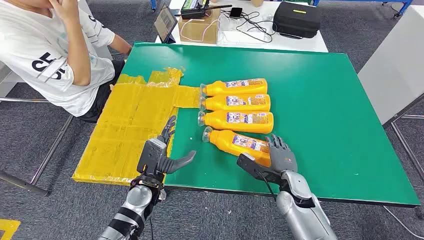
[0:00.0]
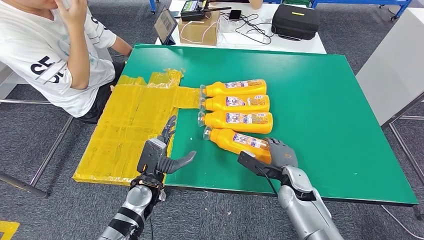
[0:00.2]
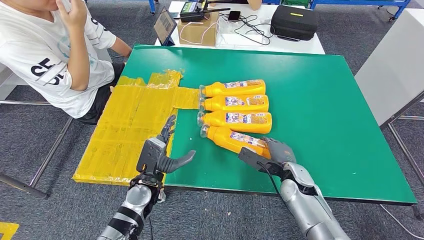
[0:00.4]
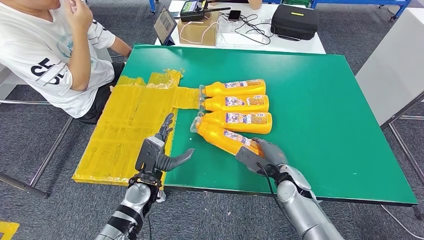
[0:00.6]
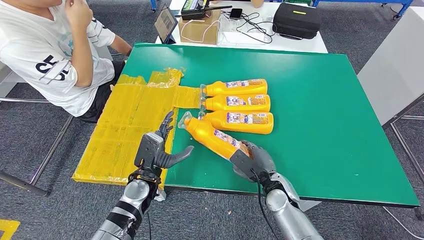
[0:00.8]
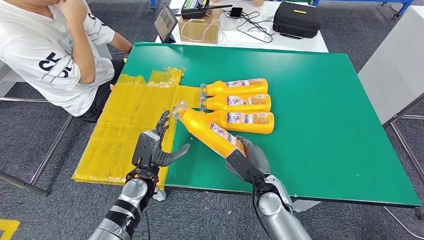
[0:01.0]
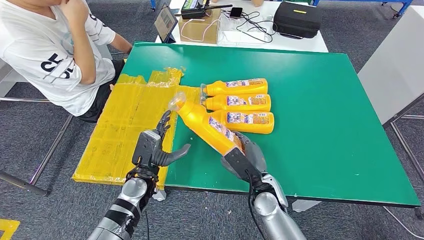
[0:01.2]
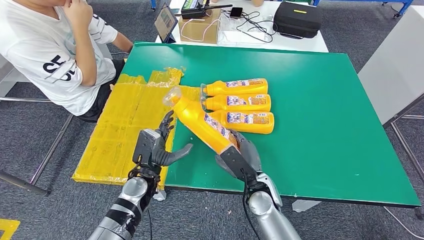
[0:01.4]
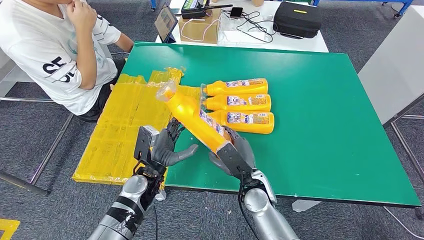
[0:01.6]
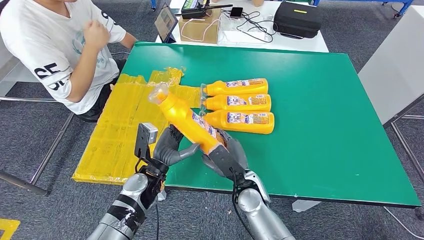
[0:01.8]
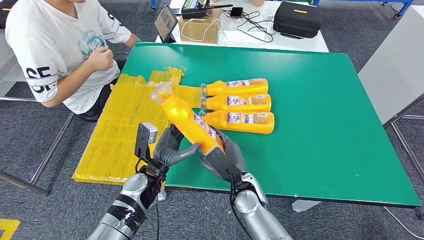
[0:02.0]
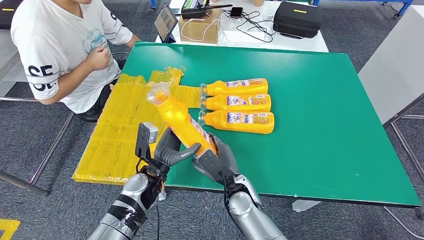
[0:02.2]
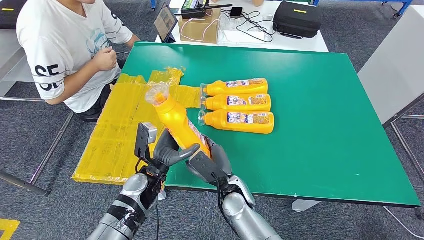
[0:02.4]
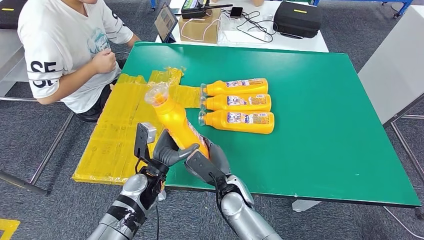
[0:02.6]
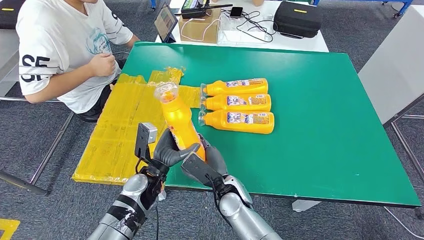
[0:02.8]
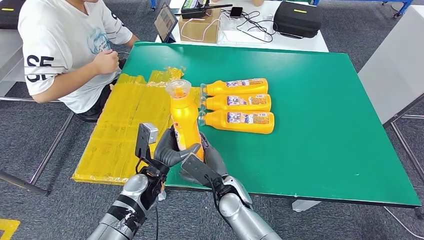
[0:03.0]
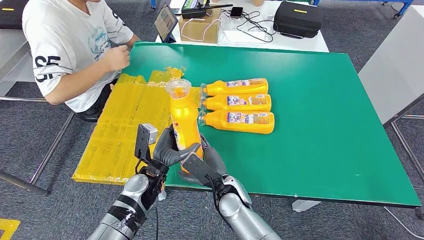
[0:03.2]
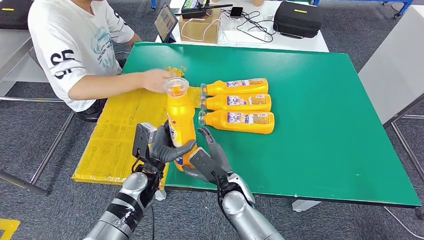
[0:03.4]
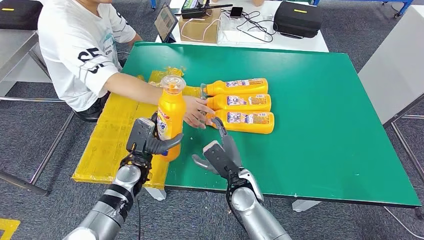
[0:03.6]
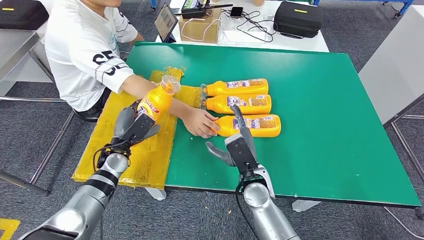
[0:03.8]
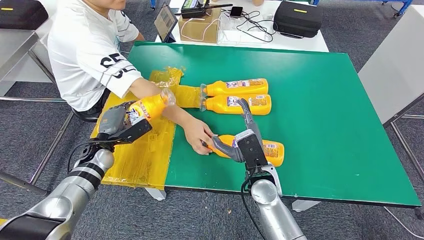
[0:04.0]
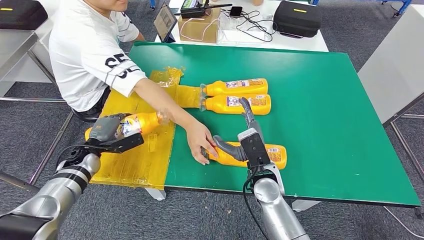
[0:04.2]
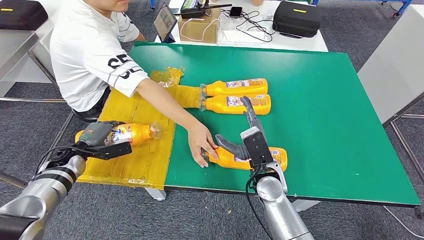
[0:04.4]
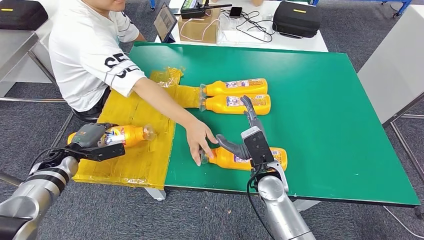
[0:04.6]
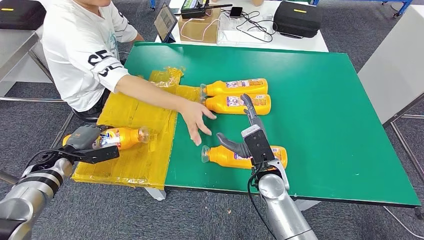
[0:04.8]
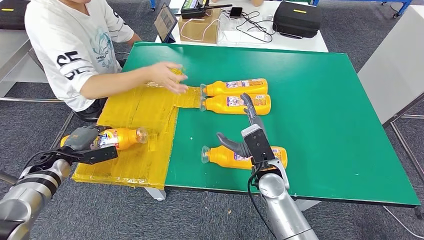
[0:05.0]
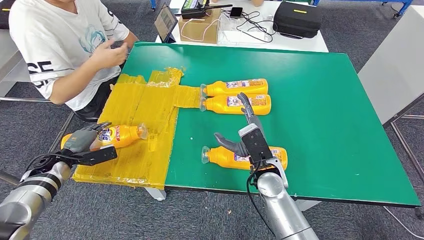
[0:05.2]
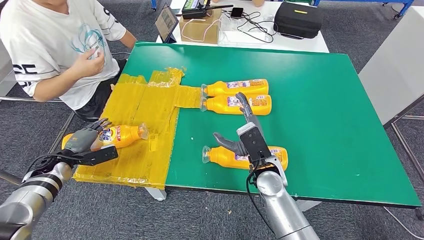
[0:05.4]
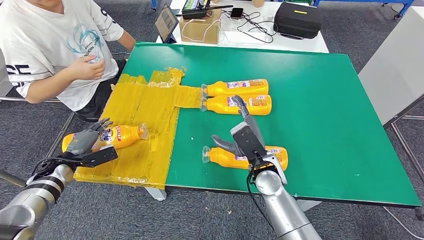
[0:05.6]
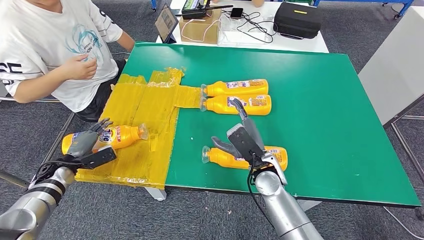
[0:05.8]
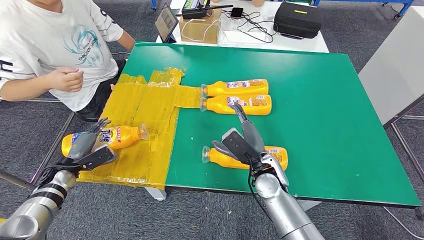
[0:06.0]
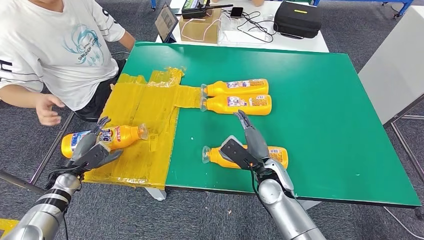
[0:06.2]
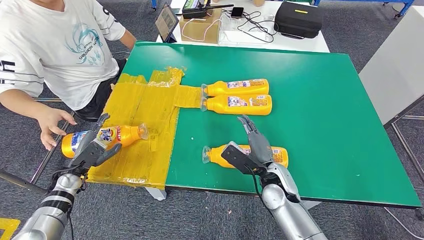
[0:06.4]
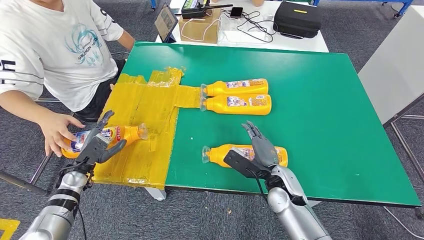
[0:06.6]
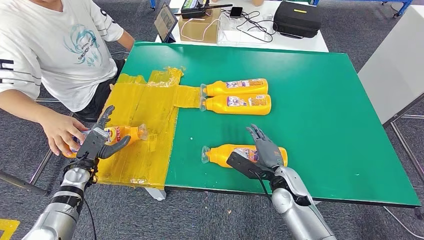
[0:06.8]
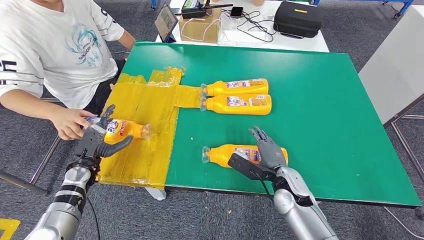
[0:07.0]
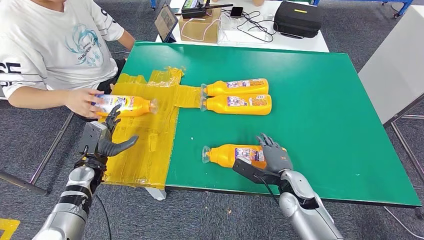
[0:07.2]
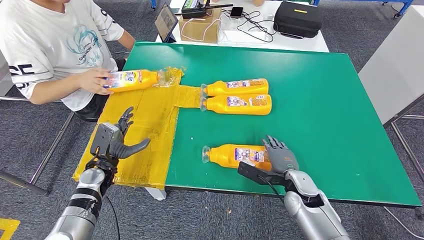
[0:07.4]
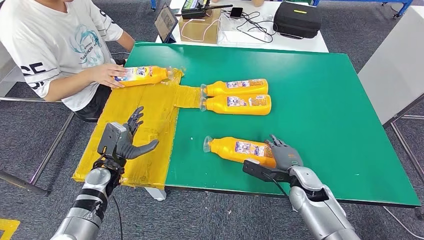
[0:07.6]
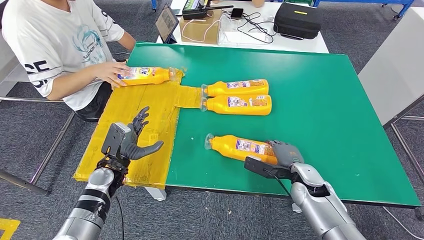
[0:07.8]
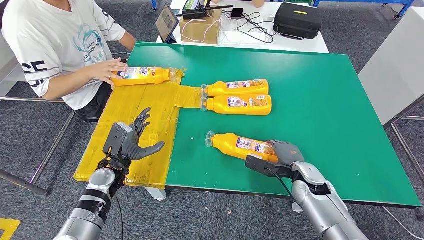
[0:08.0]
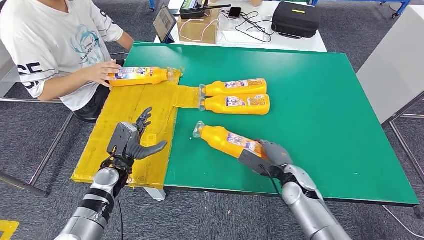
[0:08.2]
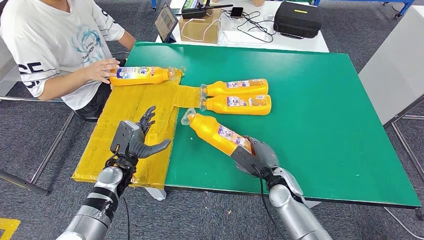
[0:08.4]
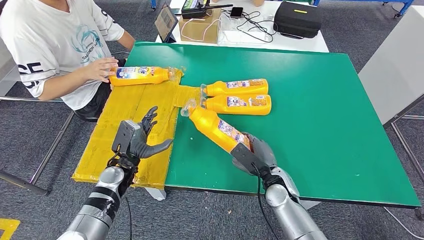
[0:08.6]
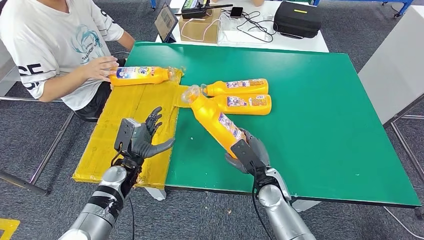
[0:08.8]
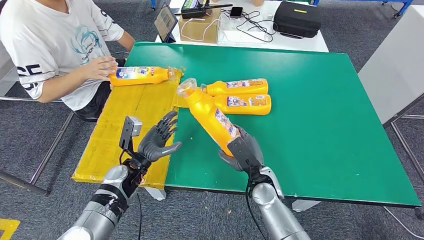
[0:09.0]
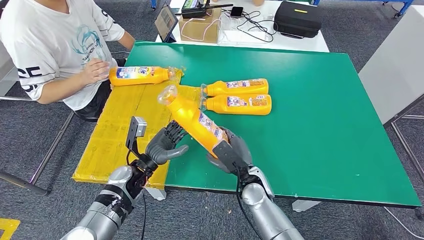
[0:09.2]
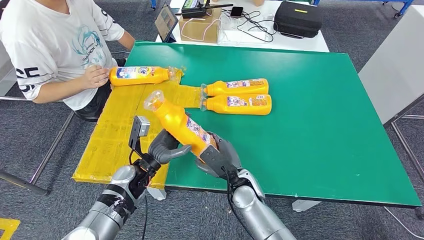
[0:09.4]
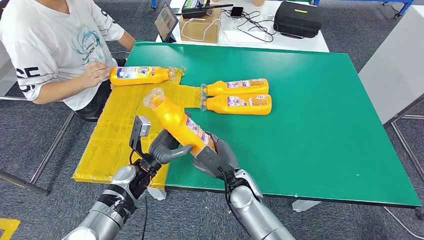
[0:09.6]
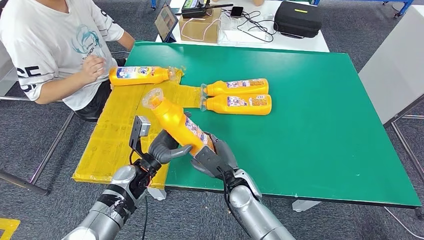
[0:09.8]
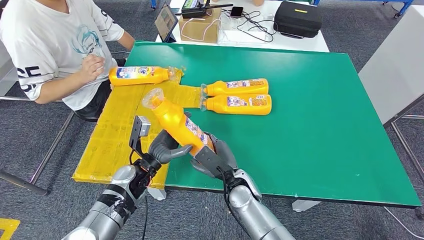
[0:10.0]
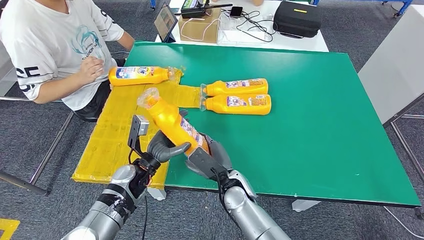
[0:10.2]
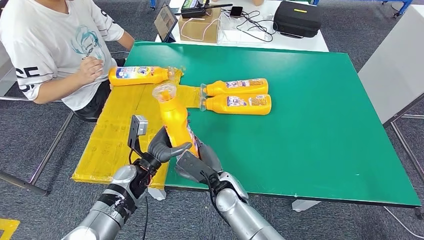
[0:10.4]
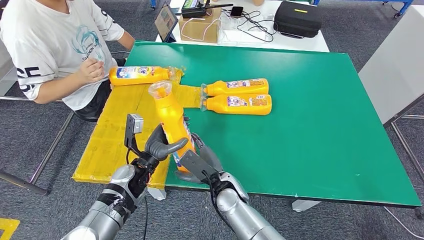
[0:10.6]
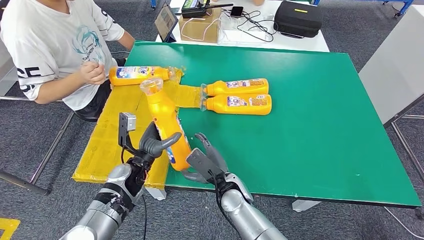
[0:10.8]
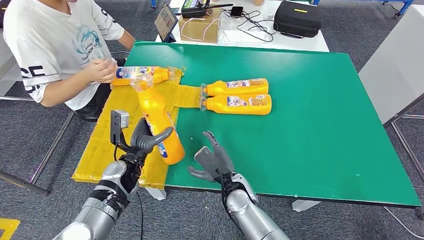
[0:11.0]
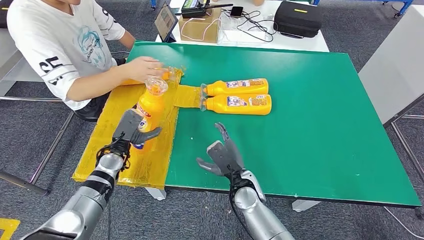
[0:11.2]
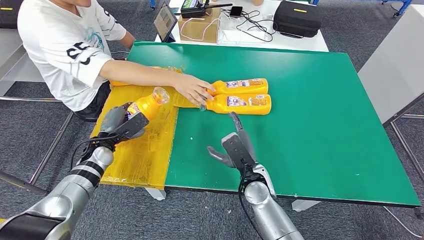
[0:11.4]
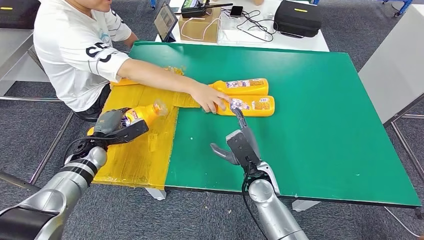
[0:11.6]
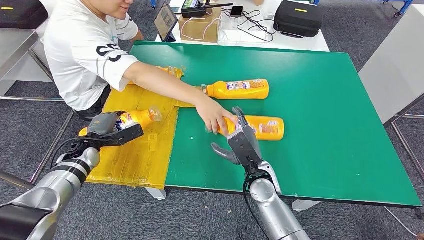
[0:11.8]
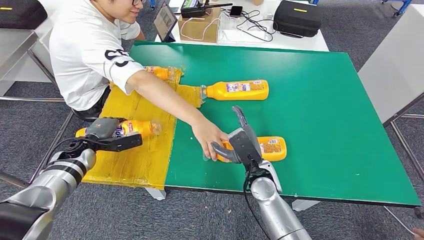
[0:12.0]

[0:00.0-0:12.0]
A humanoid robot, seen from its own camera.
Step, 0:00.0 to 0:02.8: Take the fast-moving consumer goods bottle from the table.
Step, 0:03.0 to 0:06.2: Flip the fast-moving consumer goods bottle to the front side.
Step, 0:06.4 to 0:09.6: Pick up the fast-moving consumer goods bottle from the table.
0:01.6 to 0:03.0: The right hand travels to the left by roughly 5 cm.
0:07.6 to 0:09.0: The right hand is displaced to the left by roughly 10 cm. The left hand goes some 5 cm to the right.
0:09.0 to 0:10.4: The right hand is displaced to the left by roughly 10 cm.

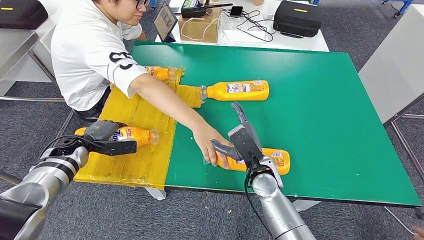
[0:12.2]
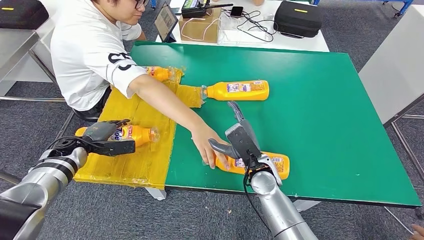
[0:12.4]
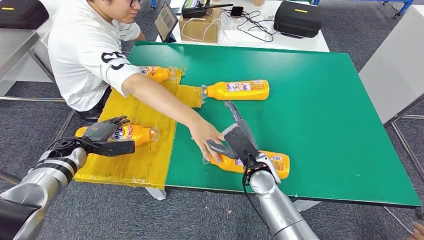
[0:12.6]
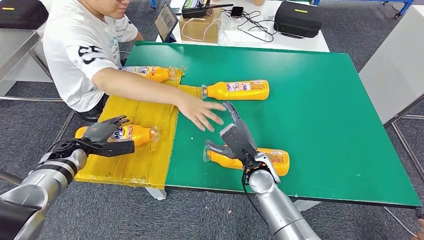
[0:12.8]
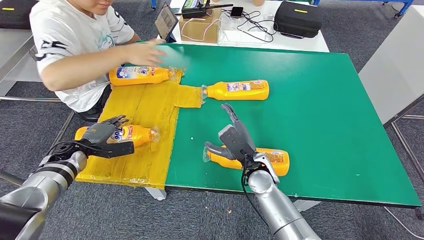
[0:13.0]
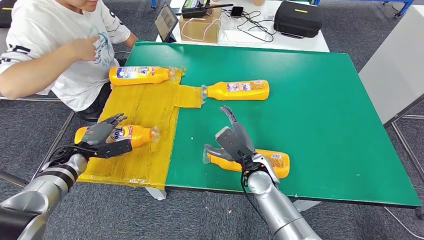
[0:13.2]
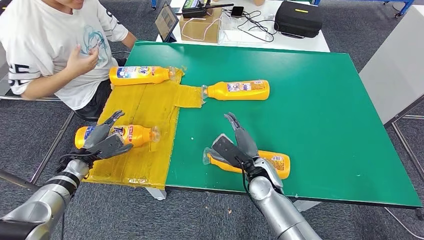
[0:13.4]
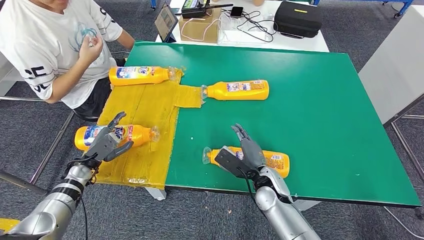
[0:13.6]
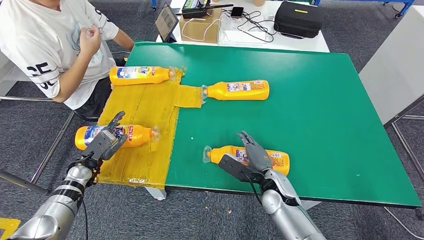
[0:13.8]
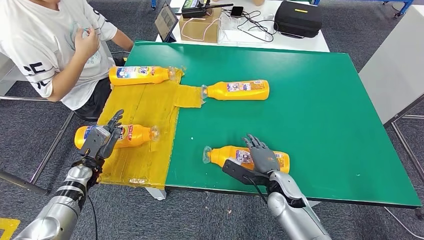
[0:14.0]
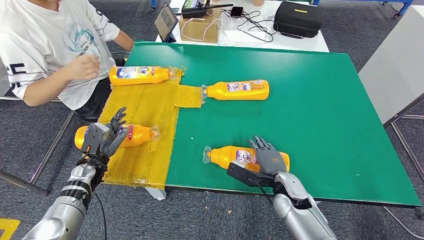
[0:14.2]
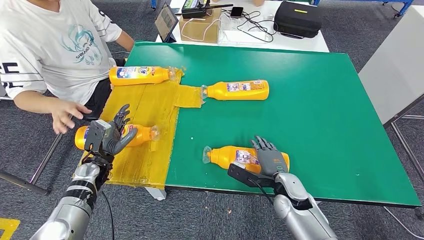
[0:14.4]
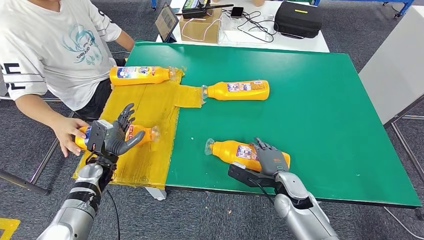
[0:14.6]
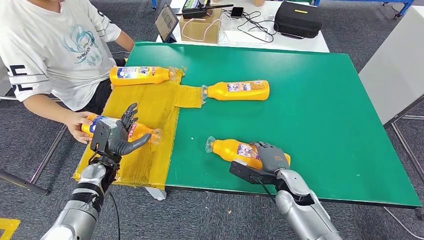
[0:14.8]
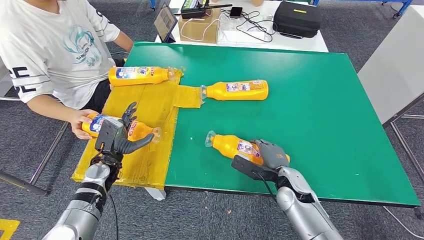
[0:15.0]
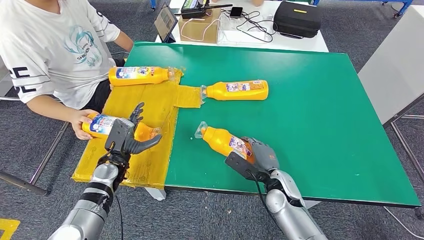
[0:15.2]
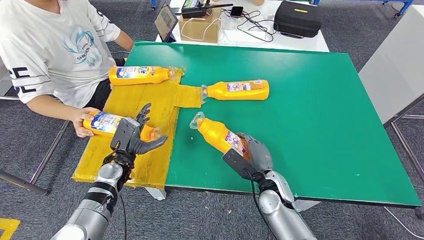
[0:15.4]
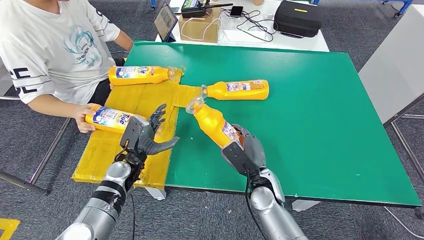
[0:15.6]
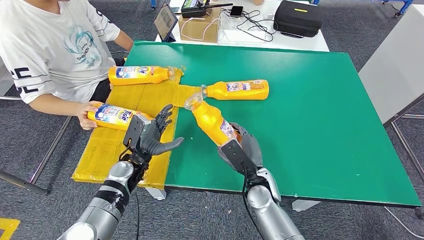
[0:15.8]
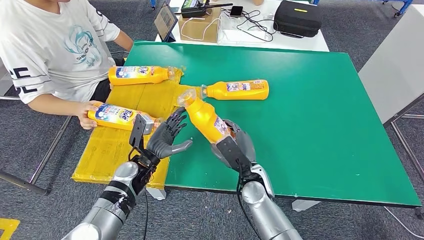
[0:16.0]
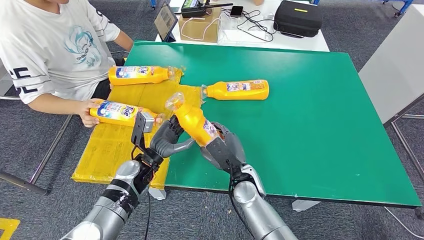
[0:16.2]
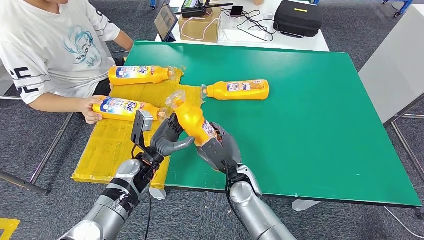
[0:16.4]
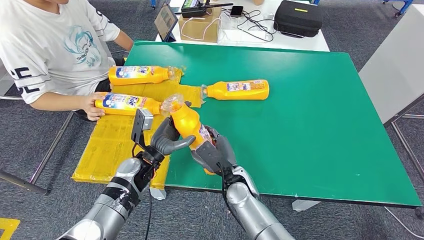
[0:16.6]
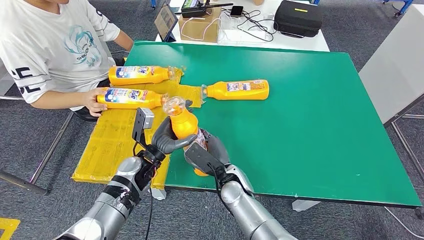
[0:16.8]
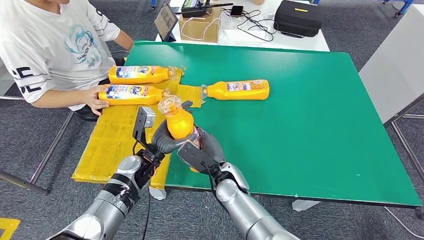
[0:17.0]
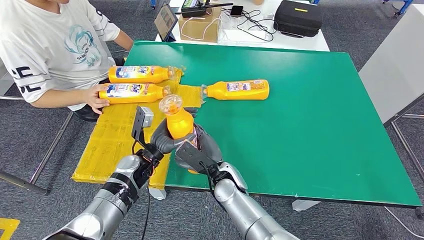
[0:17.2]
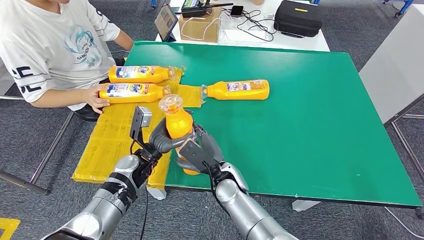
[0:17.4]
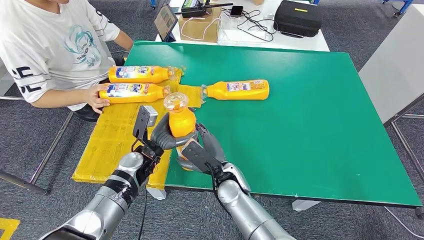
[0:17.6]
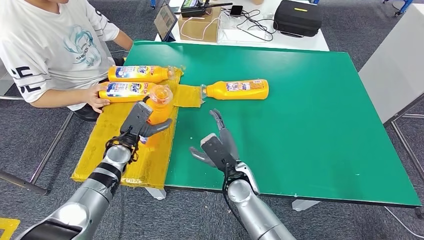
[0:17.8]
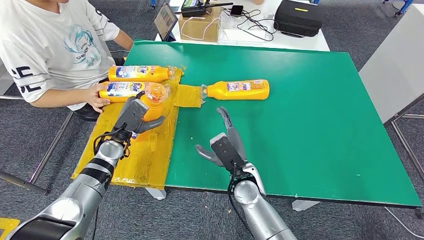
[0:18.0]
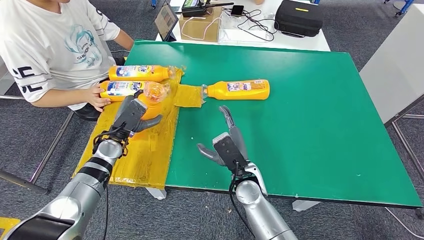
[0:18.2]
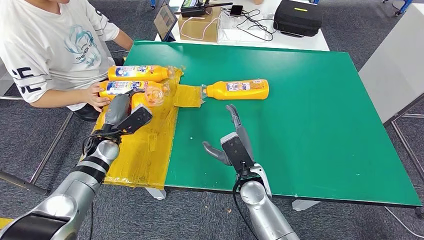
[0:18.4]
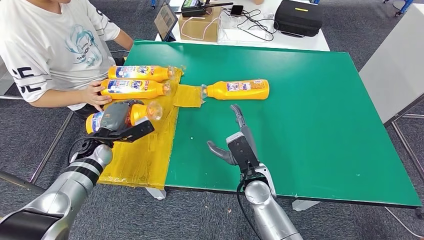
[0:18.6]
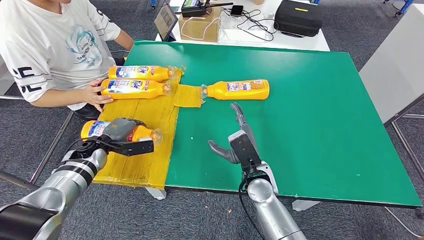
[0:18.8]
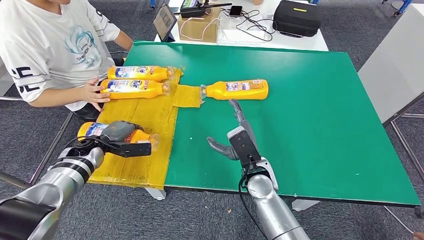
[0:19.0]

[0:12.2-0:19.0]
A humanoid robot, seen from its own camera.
Step, 0:13.2 to 0:16.6: Pick up the fast-moving consumer goods bottle from the table.
0:16.2 to 0:17.6: The hands stay close to where they were, moving slightly.
